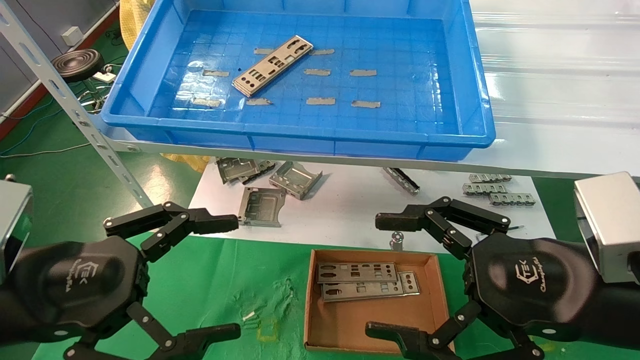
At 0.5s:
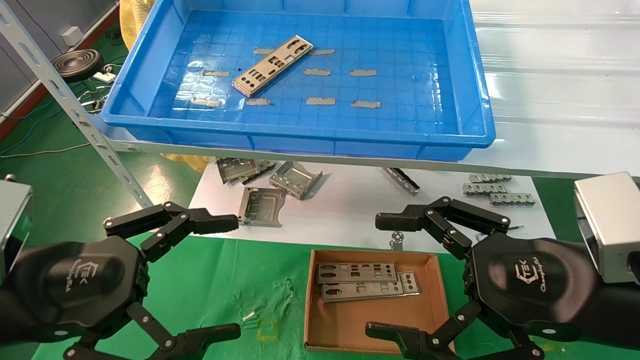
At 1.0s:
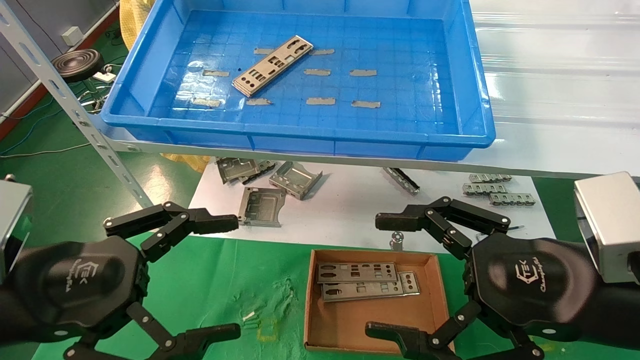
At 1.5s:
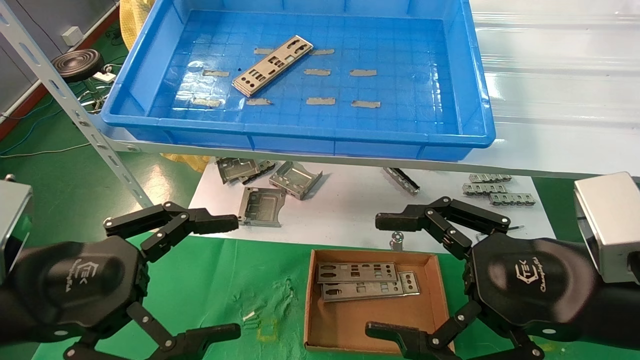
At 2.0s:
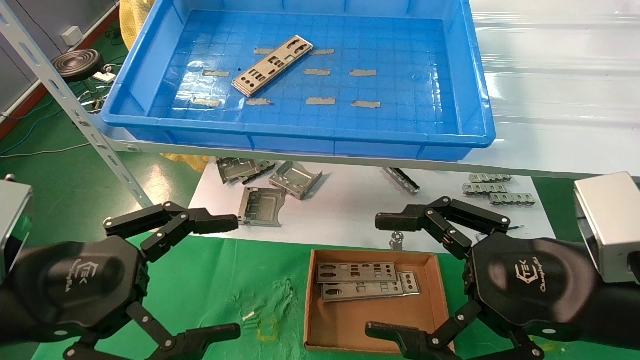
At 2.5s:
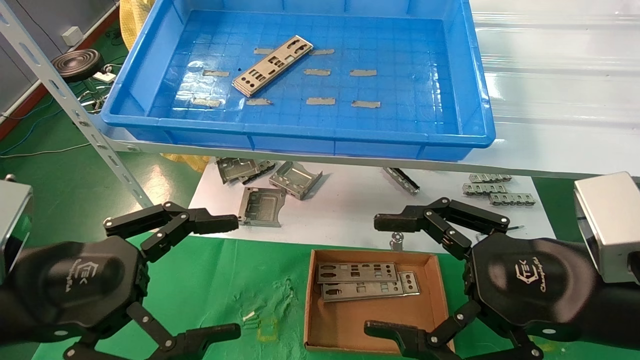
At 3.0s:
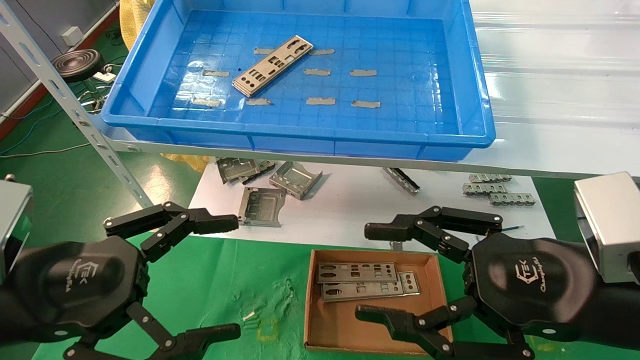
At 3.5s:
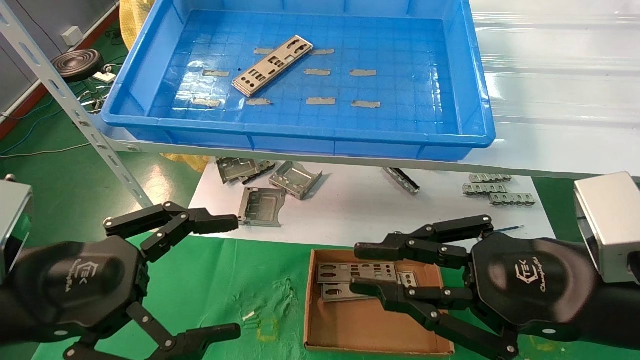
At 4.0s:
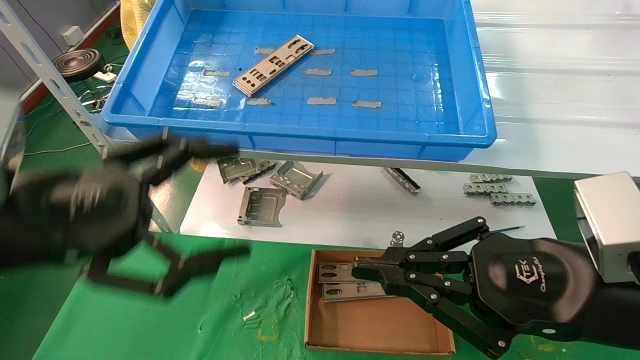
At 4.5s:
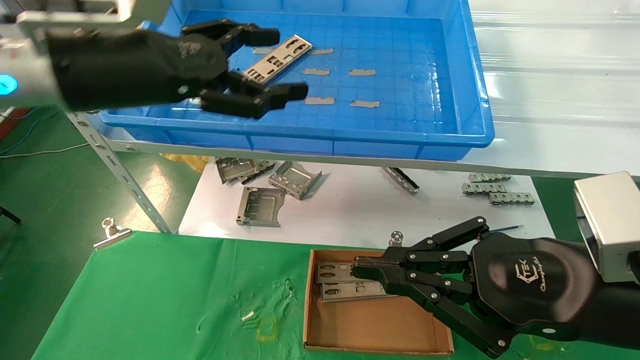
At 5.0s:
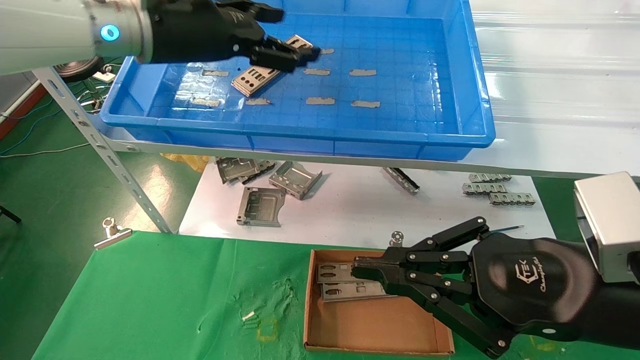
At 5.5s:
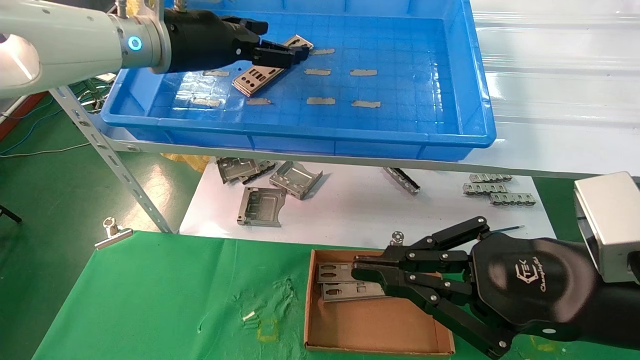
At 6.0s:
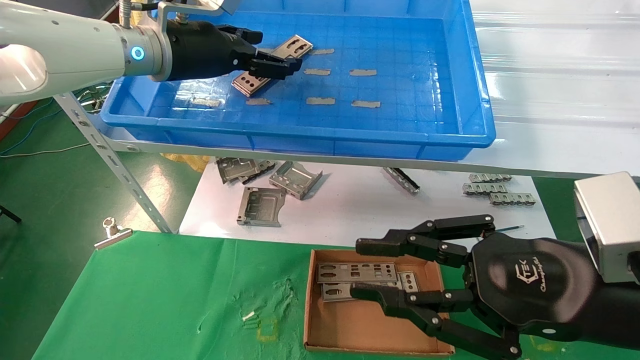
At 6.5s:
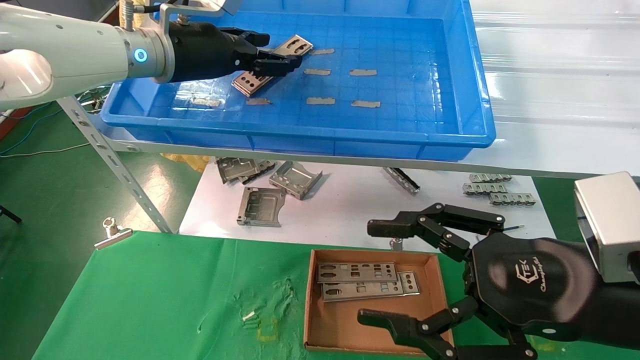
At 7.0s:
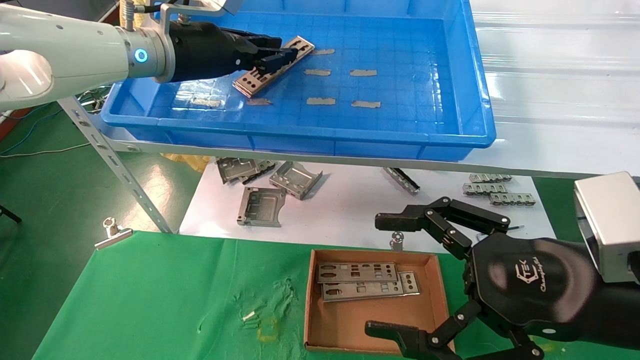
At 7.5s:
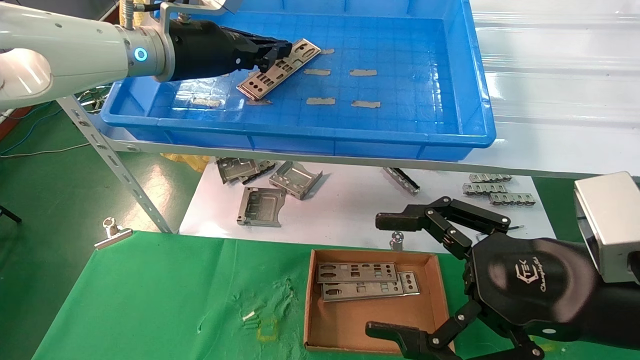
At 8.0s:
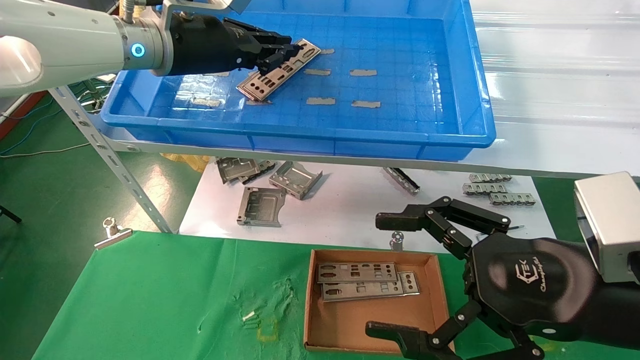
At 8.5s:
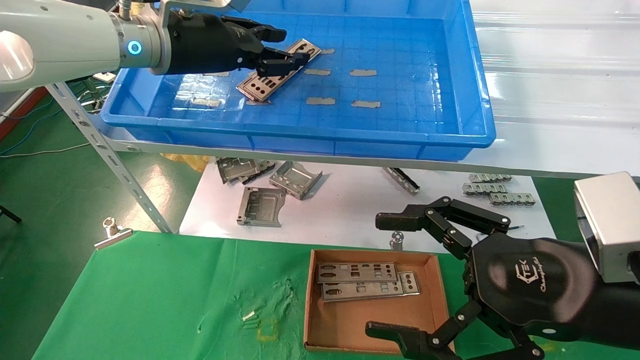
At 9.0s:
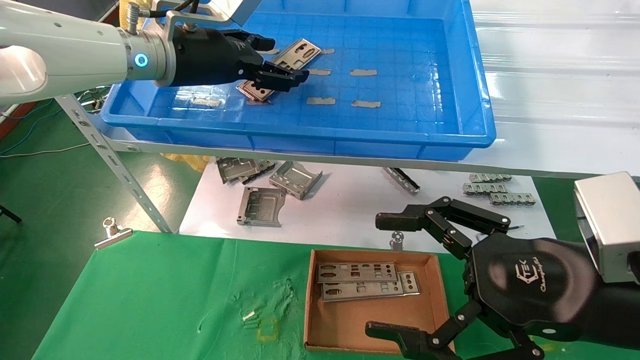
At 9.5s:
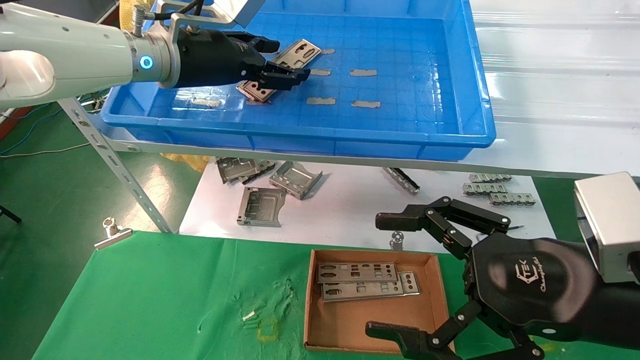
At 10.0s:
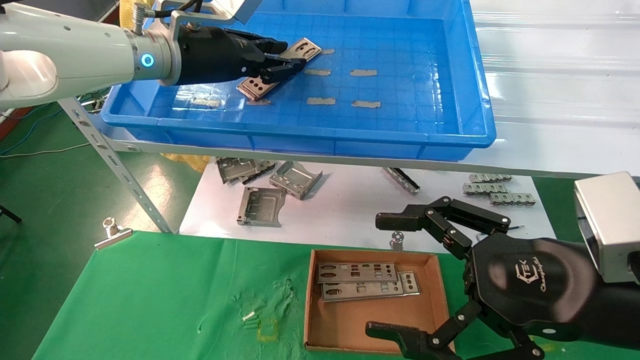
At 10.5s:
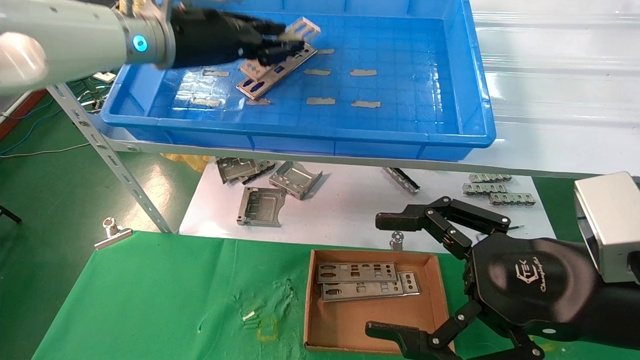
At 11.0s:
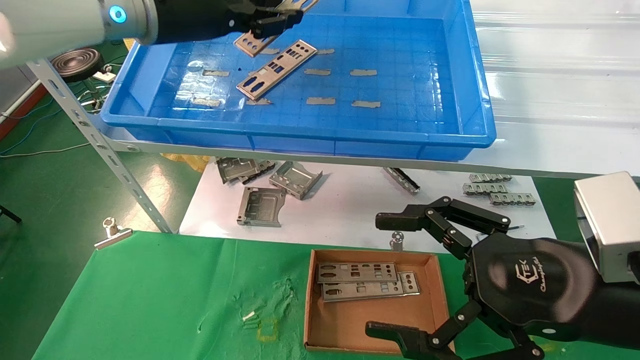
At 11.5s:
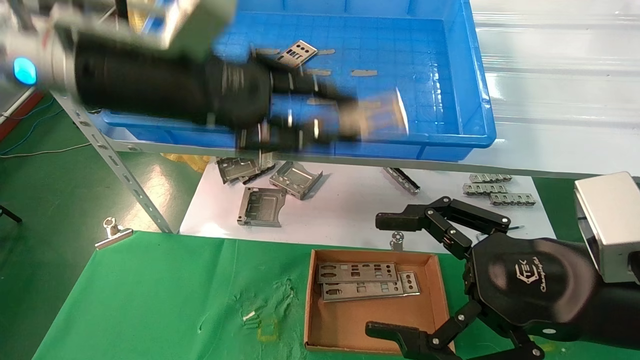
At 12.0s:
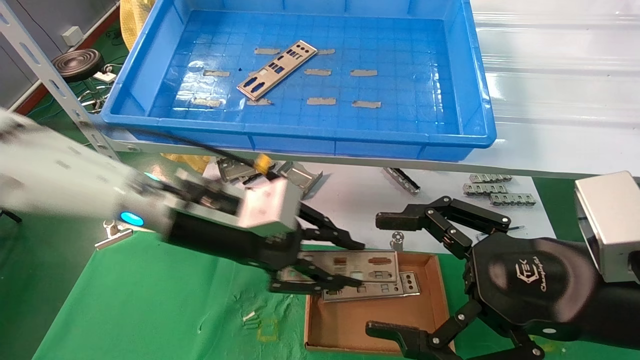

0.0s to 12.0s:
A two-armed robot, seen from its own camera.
Task of the whole recording: pick up the parts on the tray and put them in the cardboard box.
Step, 4.5s to 10.0s: Pick up the IO bracket from the container box.
0.0s to 2.0s: Neither gripper changes place.
2.0s to 4.0s: The left gripper moves upward, approximately 5 cm, while the right gripper closes up.
4.0s to 6.0s: The left gripper shifts some 25 cm forward, upward and to the right.
6.0s to 8.0s: The left gripper closes. The right gripper opens.
8.0s to 10.0s: The left gripper opens its fingers.
10.0s to 12.0s: The left gripper is displaced downward and backward by approximately 20 cm.

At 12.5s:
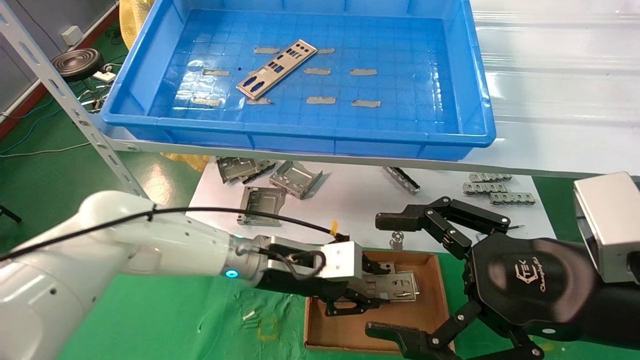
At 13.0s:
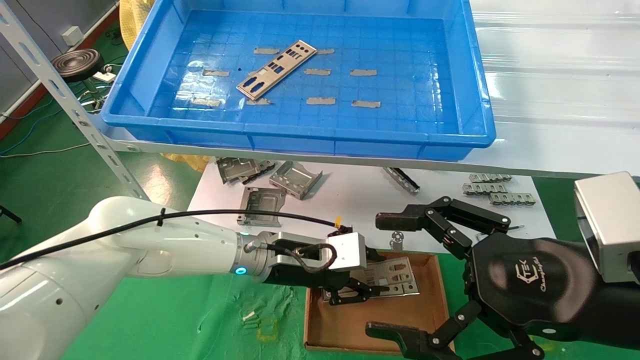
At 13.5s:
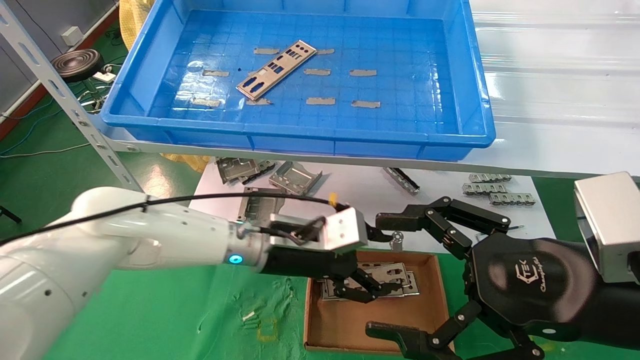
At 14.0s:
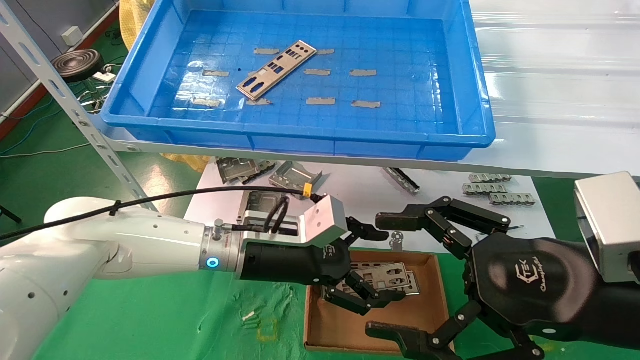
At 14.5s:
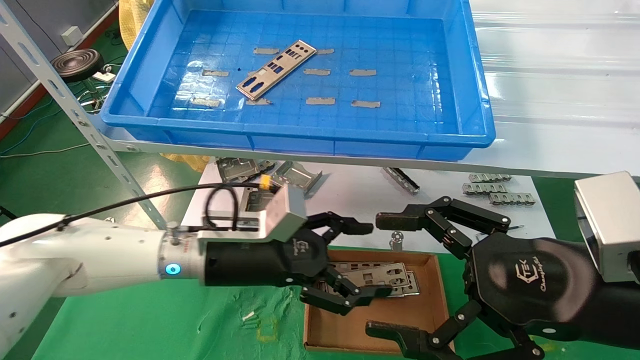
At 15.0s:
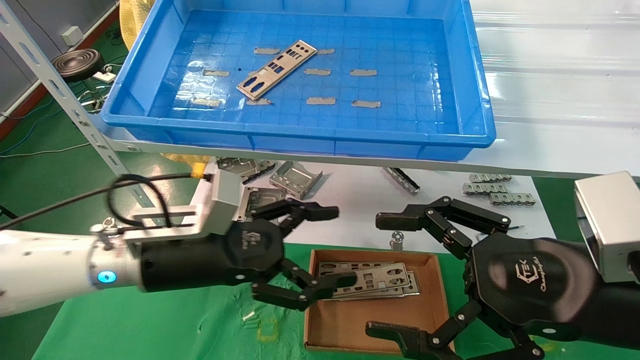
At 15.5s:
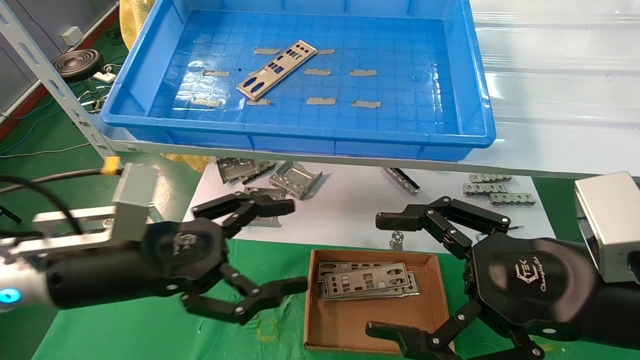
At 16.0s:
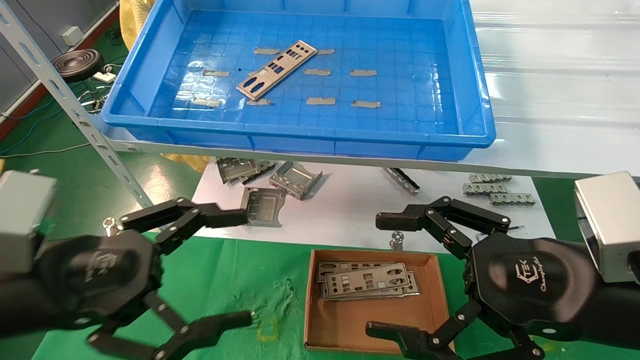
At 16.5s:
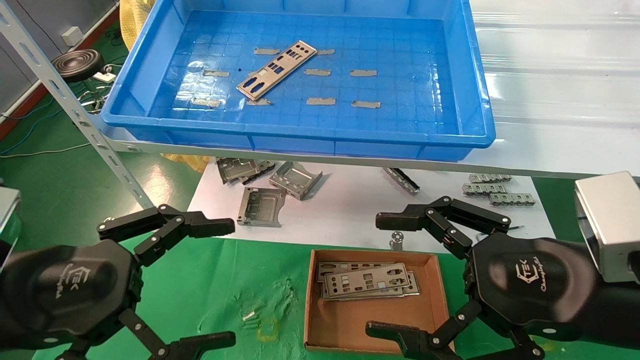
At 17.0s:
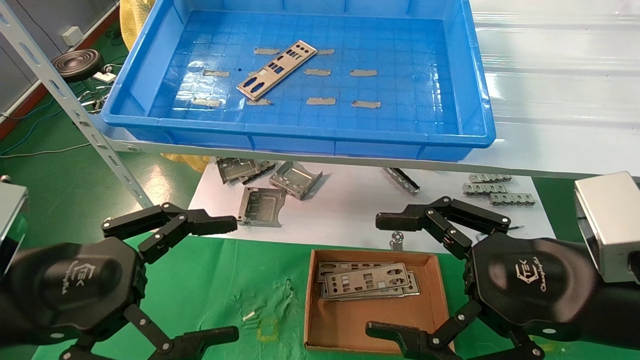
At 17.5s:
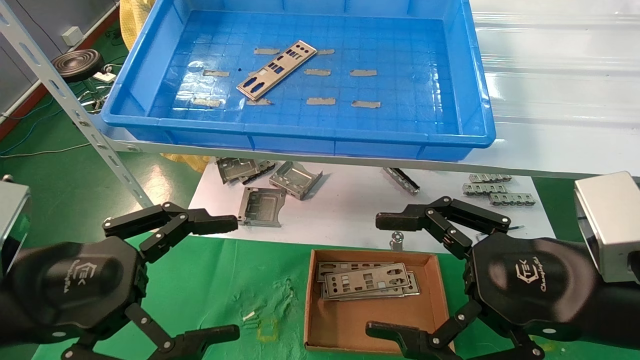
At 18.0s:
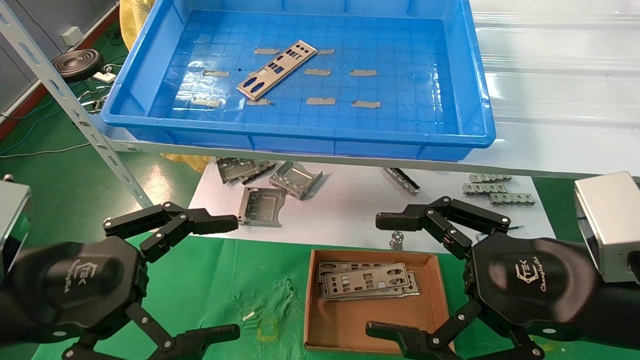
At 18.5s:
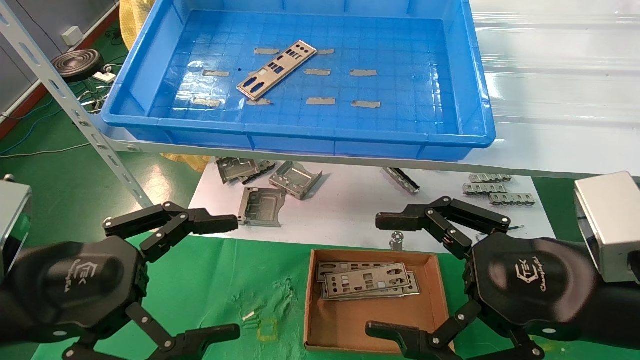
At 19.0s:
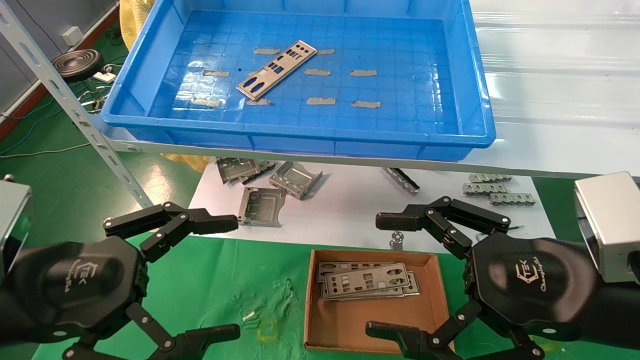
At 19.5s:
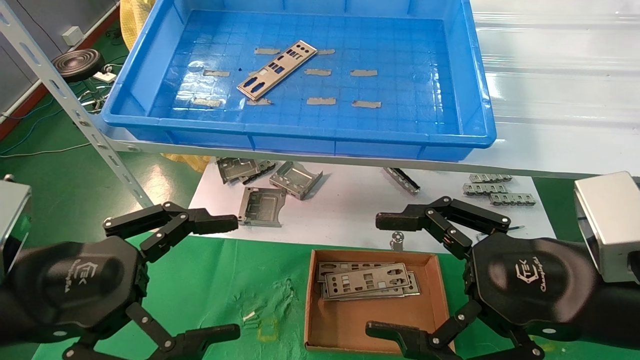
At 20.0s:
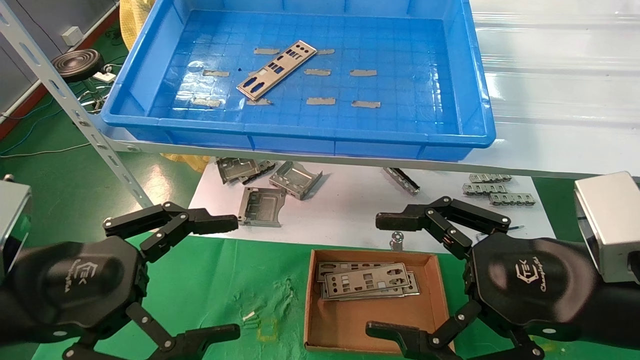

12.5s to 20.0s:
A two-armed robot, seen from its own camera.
Task of the whole recording: pick up the parts on the tray and put them in the cardboard box.
12.5s to 14.5s: The left gripper travels to the left by roughly 5 cm, and opens its fingers.
14.5s to 16.5s: The left gripper goes some 25 cm backward and to the left.
16.5s to 20.0s: Both grippers stay about where they are.
